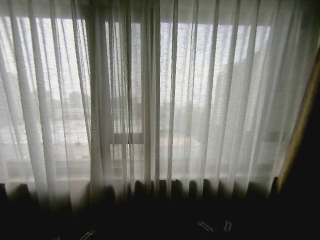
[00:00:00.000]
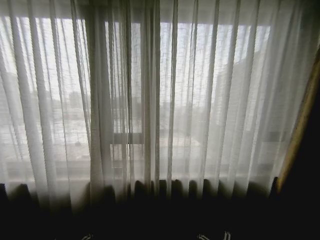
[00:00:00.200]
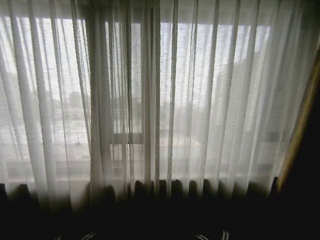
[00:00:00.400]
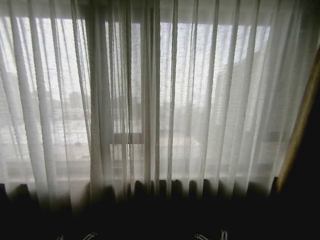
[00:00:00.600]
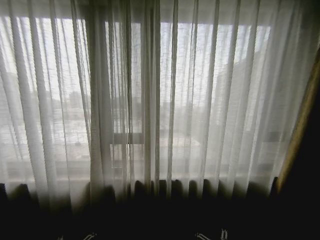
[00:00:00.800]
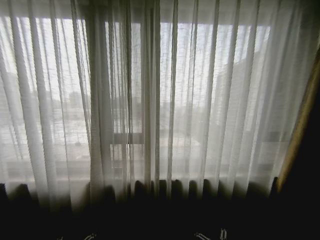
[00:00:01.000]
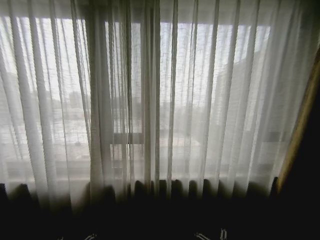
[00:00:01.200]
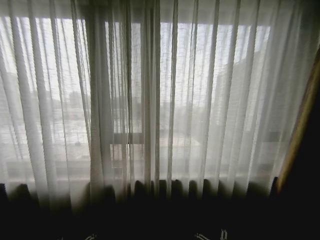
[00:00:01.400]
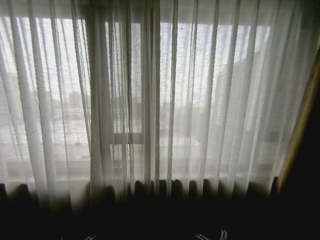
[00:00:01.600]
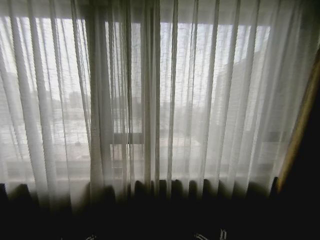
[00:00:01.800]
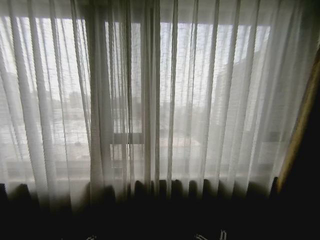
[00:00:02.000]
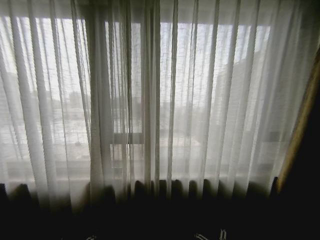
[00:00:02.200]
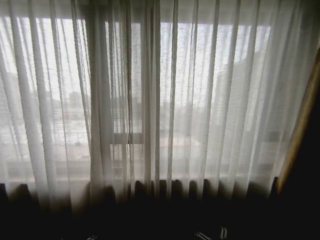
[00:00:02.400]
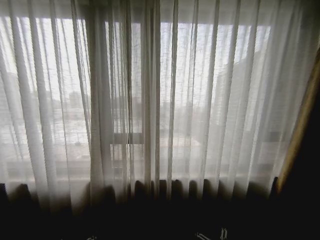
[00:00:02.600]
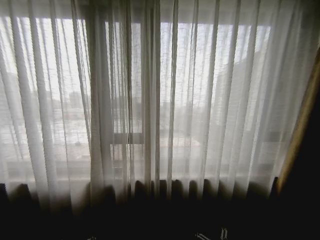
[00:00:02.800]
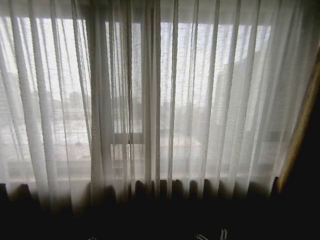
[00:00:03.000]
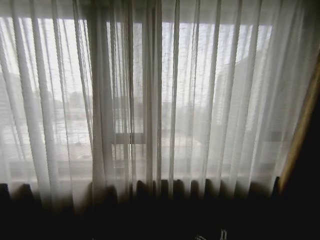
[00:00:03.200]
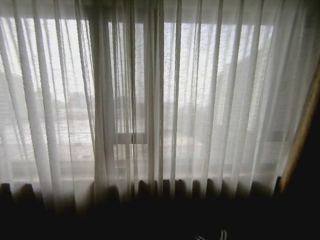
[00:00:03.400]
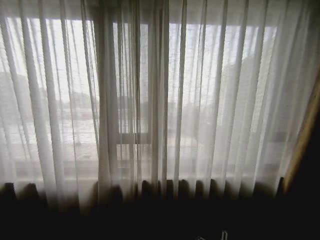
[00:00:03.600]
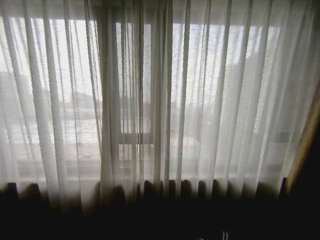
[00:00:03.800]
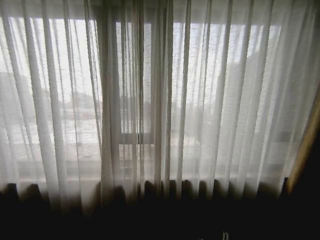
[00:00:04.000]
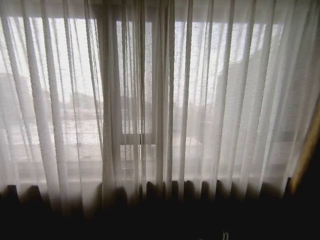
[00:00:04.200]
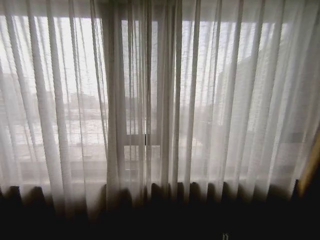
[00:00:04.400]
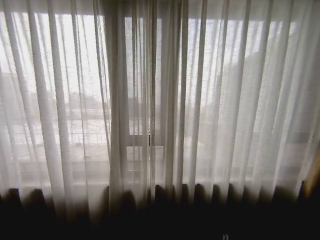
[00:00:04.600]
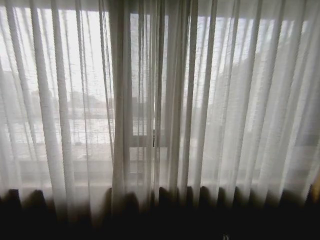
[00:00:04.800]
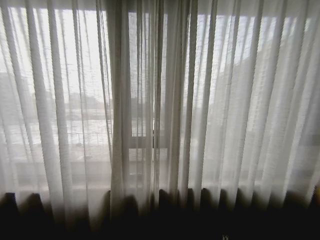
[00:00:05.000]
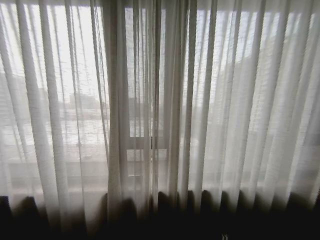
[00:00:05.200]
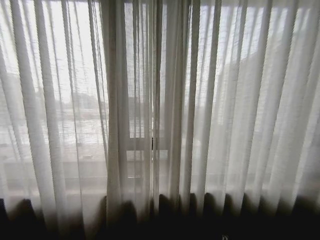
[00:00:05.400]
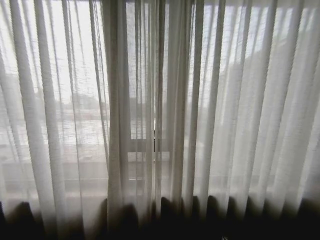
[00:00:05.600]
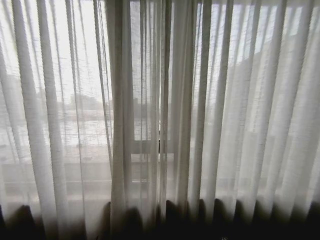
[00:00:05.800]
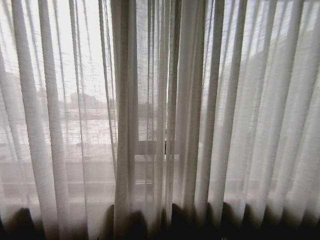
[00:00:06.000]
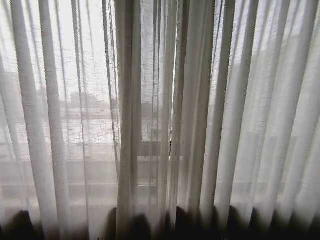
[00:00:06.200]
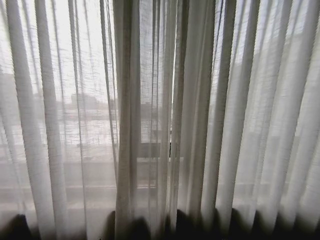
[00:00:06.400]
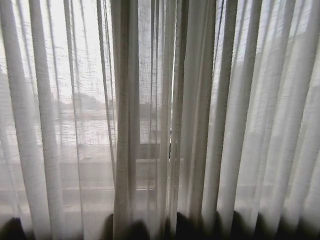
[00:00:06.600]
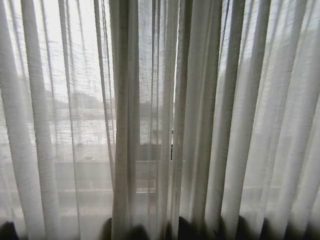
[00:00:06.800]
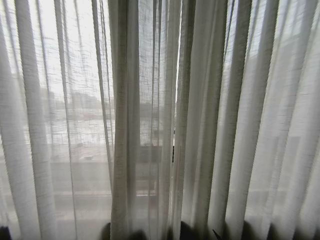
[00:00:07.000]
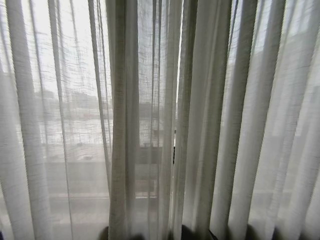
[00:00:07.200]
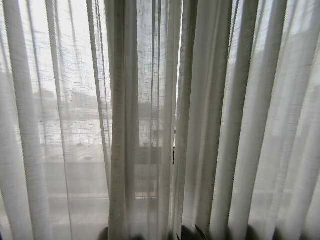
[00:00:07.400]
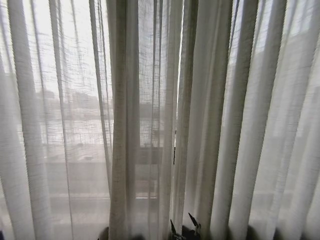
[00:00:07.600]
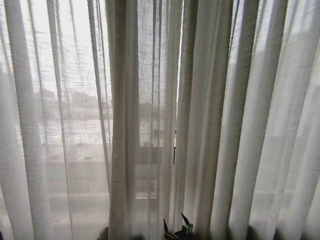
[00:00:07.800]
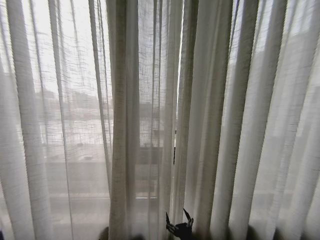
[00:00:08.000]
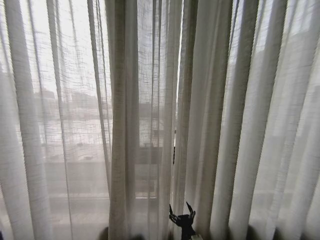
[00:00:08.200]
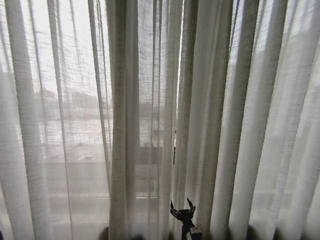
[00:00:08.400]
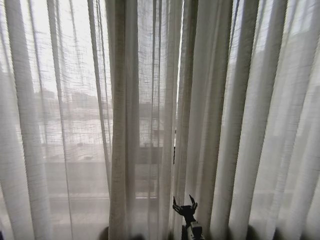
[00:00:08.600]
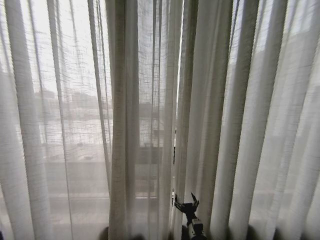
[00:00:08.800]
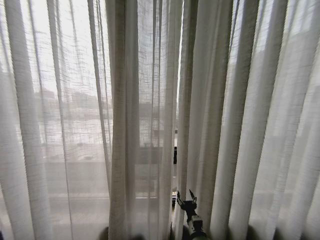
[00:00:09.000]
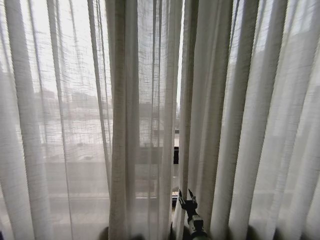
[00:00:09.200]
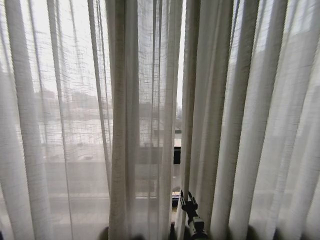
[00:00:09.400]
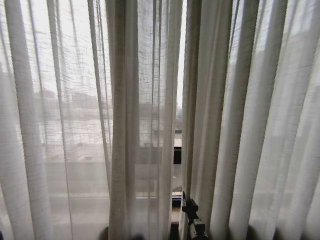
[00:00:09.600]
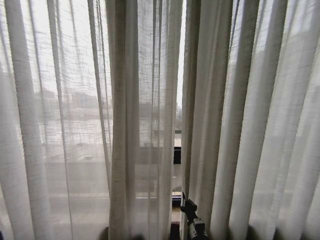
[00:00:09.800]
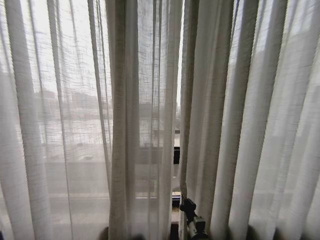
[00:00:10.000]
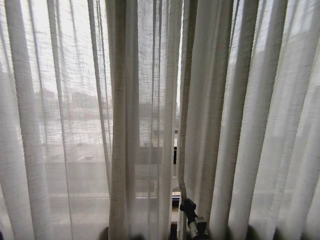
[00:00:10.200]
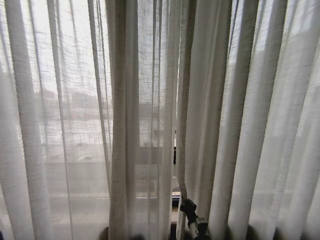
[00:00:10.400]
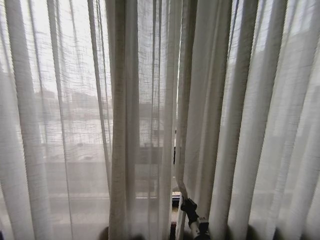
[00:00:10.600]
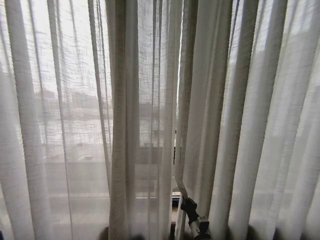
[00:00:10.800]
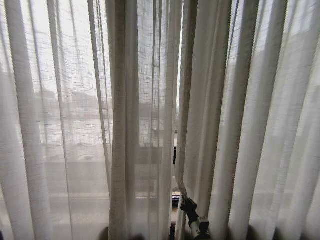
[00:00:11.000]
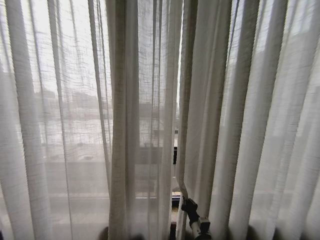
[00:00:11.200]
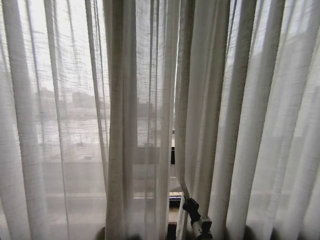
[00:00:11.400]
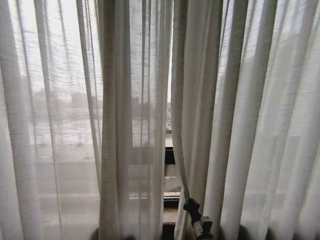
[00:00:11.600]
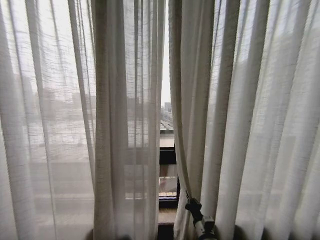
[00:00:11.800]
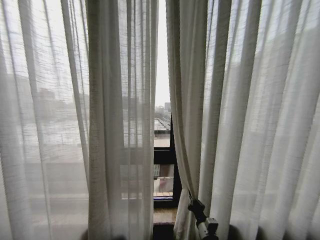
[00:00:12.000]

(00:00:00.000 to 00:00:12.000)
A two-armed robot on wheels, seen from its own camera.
Task of the whole recording: Open the curtains by pulling them apart, changing their state from closed to fully open.
00:00:01.600 - 00:00:03.000: The grippers make only small movements.
00:00:06.000 - 00:00:07.600: The right gripper moves to the left, approximately 5 cm.
00:00:07.600 - 00:00:09.000: The right gripper shifts some 15 cm forward.
00:00:09.000 - 00:00:10.400: The right gripper closes up.

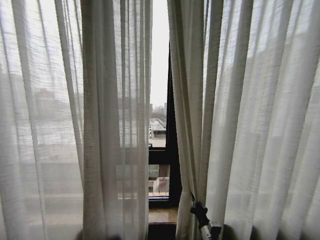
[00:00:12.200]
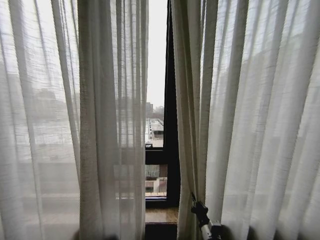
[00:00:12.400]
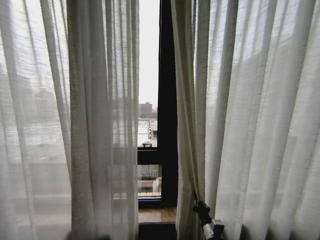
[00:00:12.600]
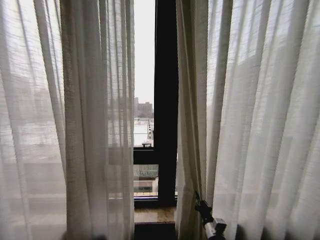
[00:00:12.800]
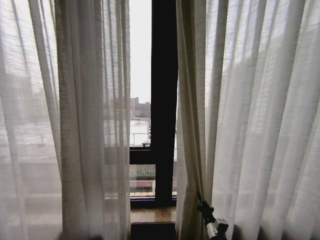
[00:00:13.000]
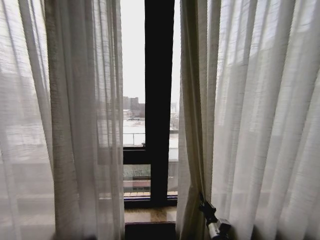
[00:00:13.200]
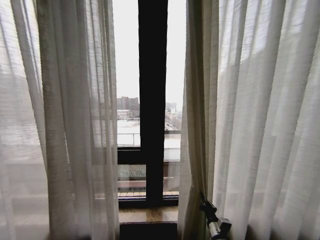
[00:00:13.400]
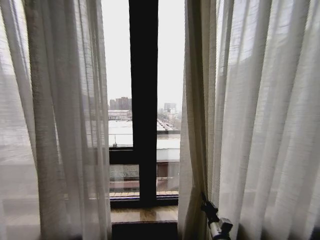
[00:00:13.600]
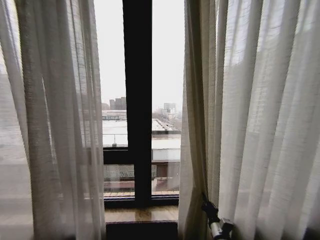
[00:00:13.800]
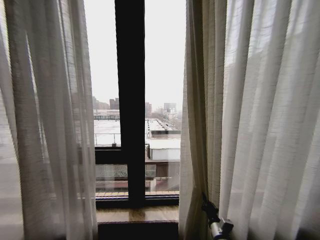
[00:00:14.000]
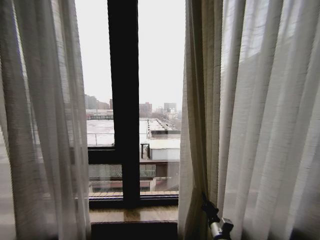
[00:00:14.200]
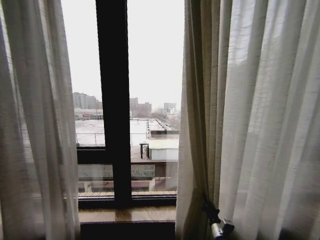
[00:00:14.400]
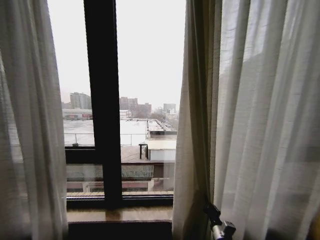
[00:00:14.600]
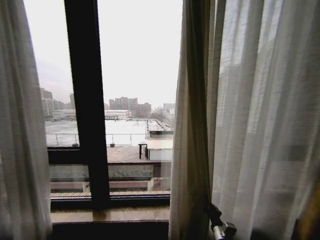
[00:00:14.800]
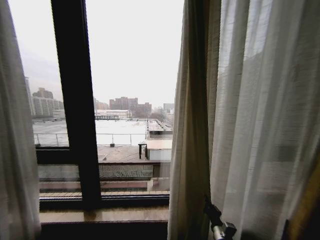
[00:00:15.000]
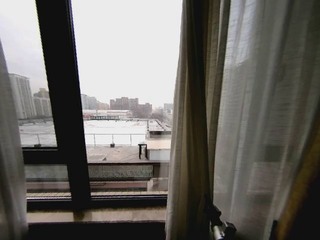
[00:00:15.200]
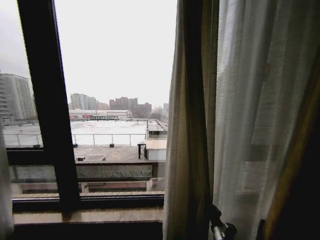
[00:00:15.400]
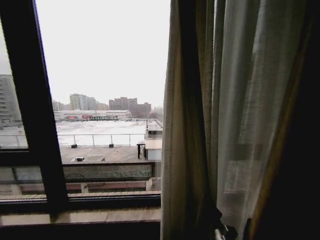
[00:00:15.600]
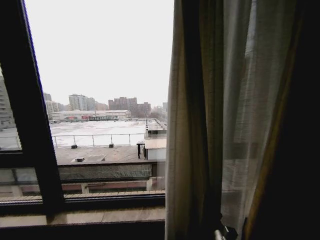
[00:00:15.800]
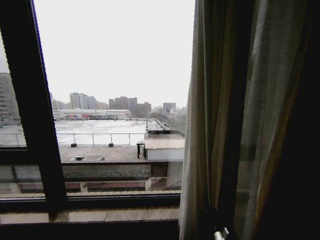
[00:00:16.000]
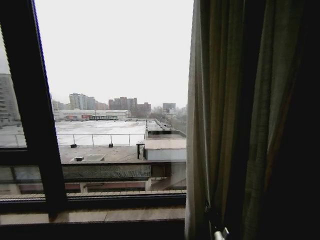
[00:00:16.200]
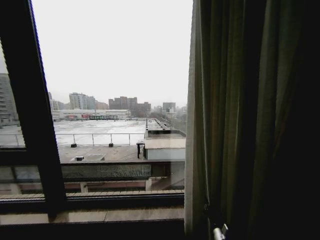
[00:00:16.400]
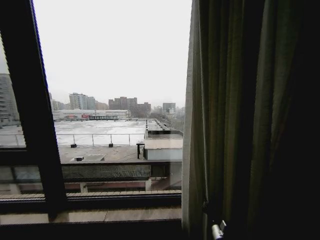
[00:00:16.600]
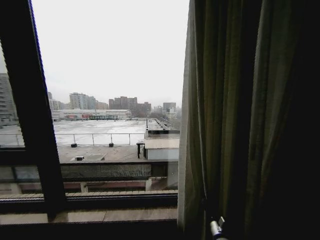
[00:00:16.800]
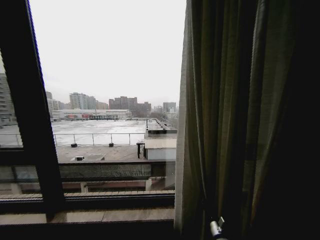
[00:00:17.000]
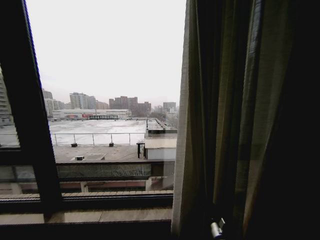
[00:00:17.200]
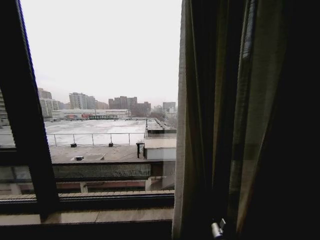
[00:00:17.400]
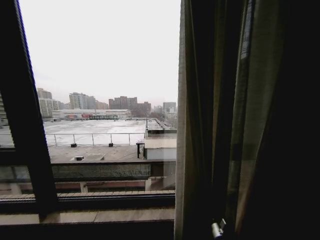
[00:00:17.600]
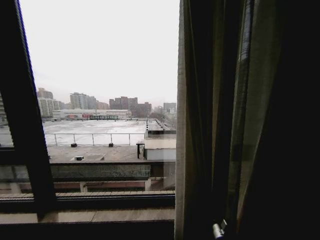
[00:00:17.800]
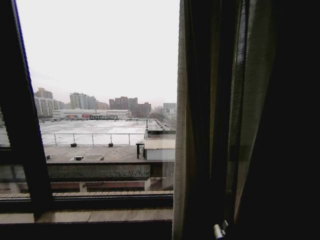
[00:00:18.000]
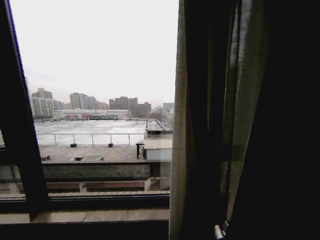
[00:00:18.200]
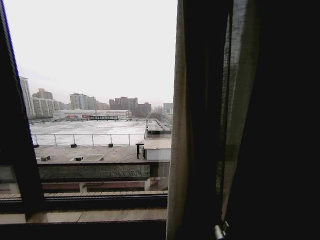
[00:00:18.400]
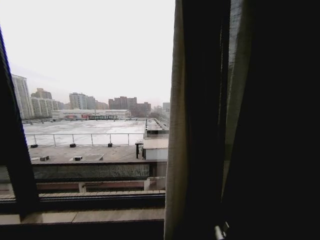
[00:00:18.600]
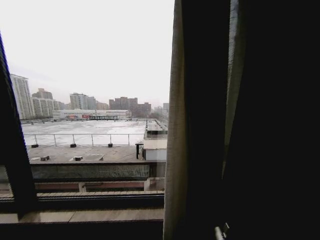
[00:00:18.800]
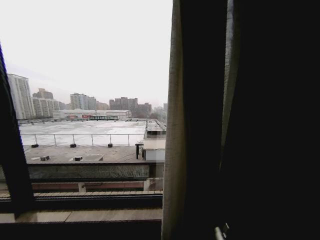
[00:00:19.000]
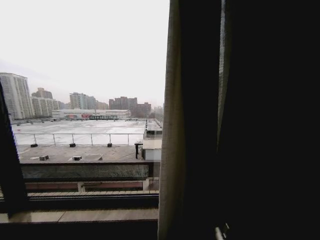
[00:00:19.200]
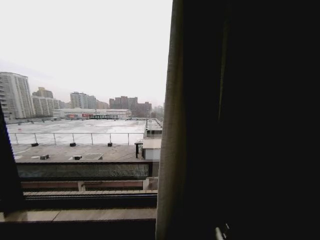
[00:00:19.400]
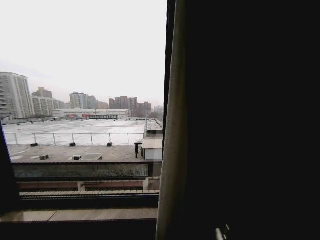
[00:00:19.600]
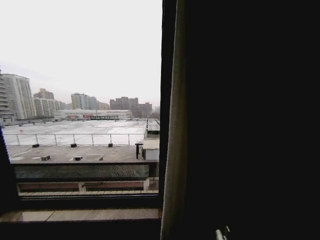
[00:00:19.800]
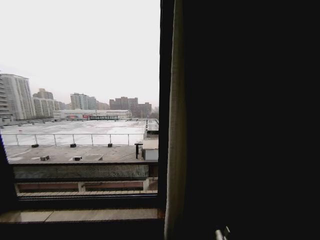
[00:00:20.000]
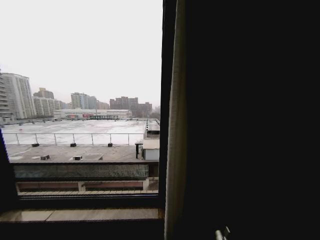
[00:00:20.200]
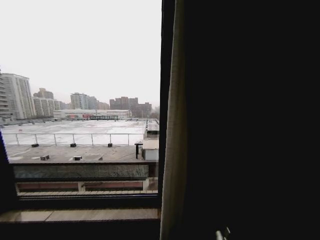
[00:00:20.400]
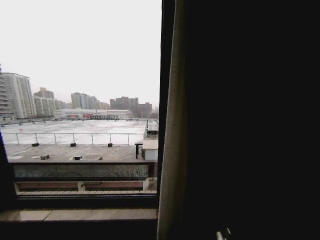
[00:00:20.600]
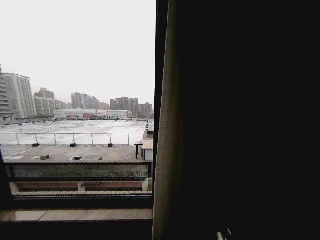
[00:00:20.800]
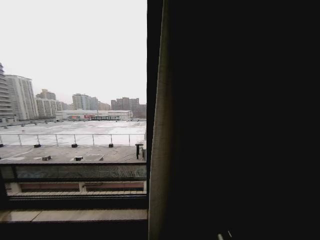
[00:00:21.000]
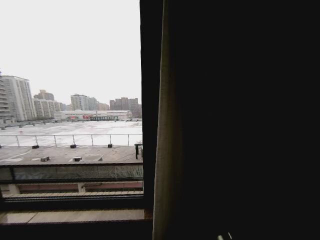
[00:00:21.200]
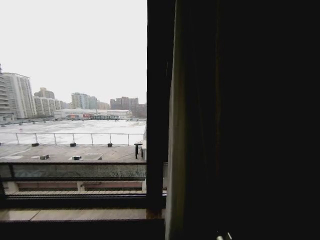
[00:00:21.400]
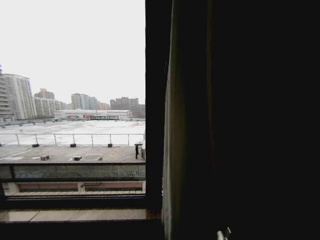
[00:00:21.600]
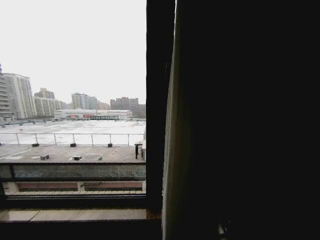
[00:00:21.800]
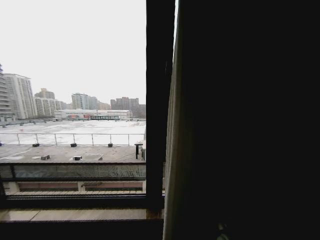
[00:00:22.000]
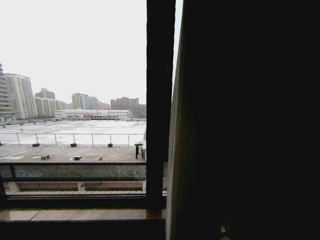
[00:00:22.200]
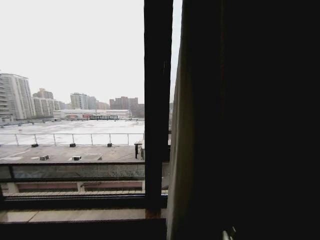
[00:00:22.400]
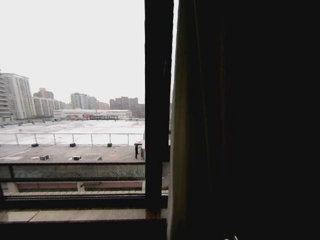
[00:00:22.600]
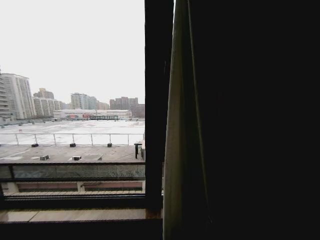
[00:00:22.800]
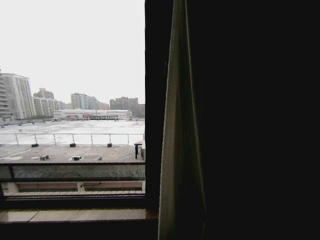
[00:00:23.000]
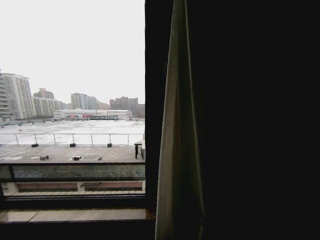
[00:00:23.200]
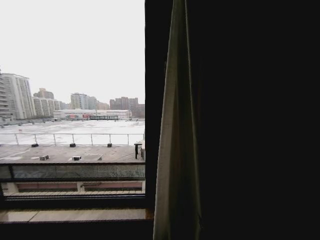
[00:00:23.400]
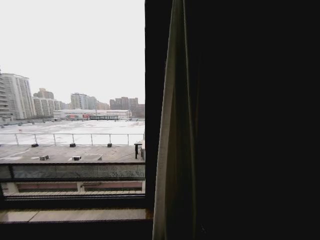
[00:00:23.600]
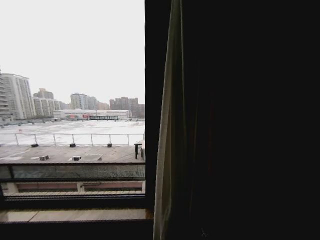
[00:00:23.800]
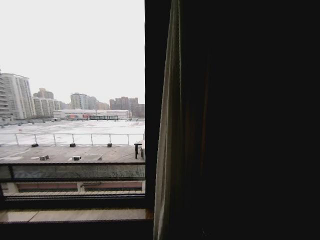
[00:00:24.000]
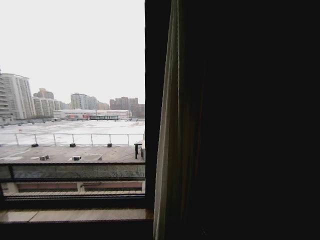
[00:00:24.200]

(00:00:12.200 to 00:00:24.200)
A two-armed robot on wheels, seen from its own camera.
Task of the whole recording: Open the curtains by pulling them apart, changing their state from closed to fully open.
00:00:12.200 - 00:00:13.800: The right gripper shifts by approximately 5 cm.
00:00:19.800 - 00:00:21.200: There are only small adjustments of the grippers.
00:00:21.200 - 00:00:22.600: The right gripper travels forward and back again, some 5 cm each way.
00:00:22.600 - 00:00:24.200: The right gripper travels backward by about 10 cm, and opens.
